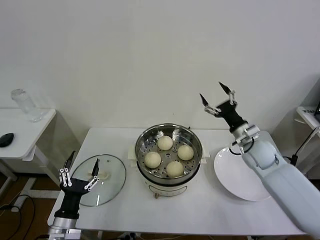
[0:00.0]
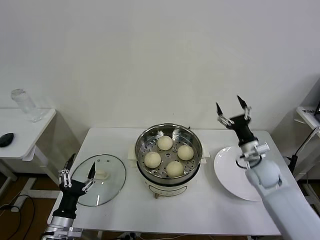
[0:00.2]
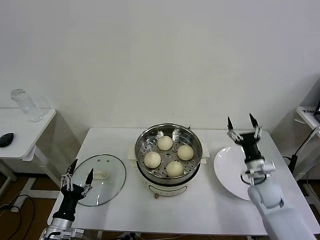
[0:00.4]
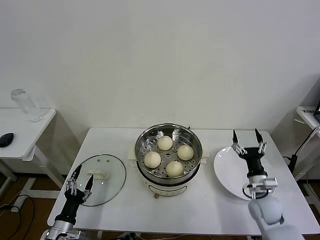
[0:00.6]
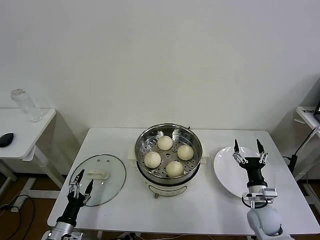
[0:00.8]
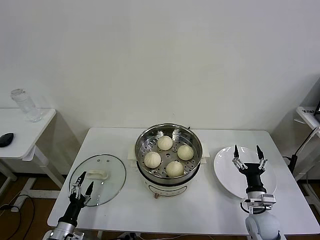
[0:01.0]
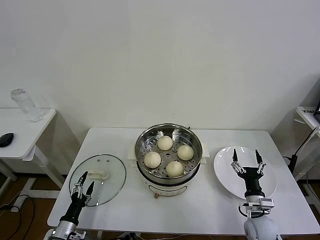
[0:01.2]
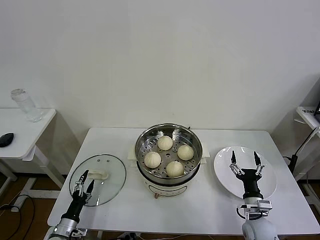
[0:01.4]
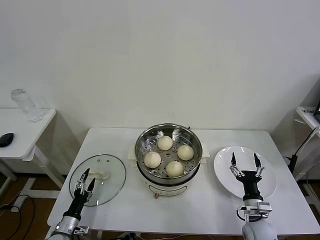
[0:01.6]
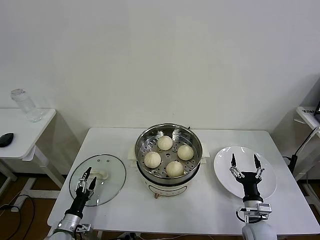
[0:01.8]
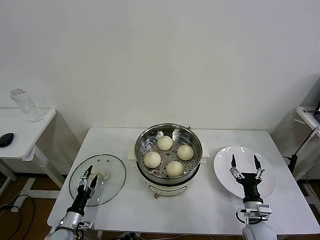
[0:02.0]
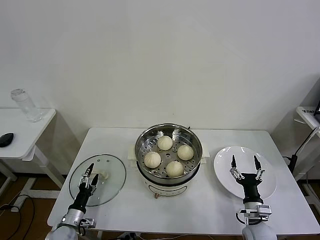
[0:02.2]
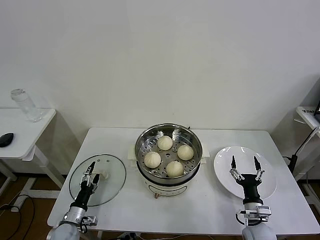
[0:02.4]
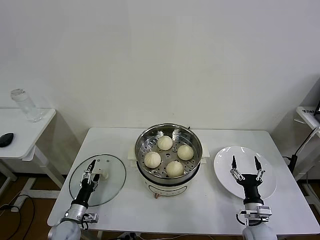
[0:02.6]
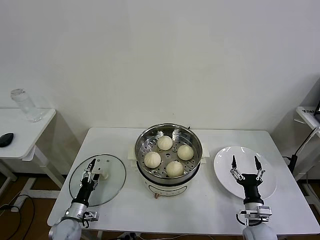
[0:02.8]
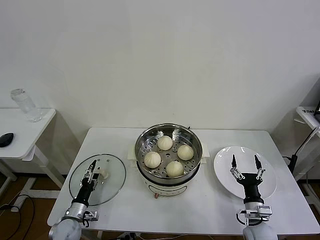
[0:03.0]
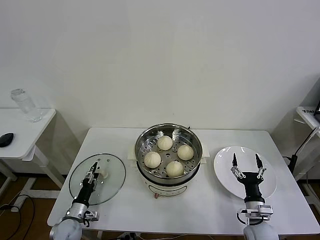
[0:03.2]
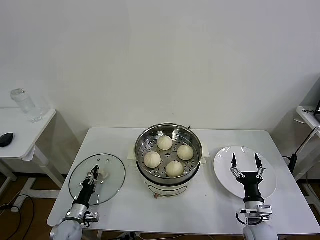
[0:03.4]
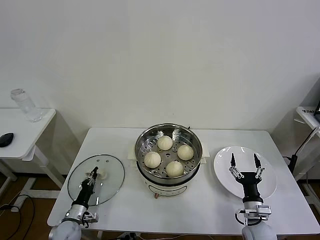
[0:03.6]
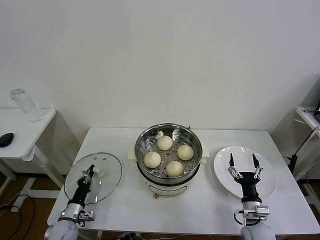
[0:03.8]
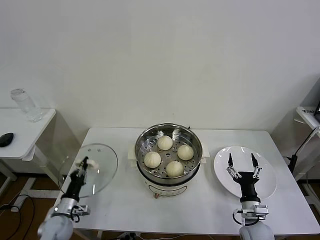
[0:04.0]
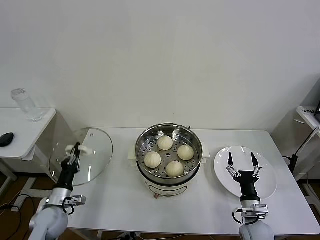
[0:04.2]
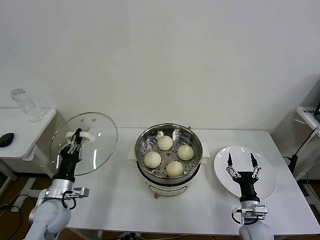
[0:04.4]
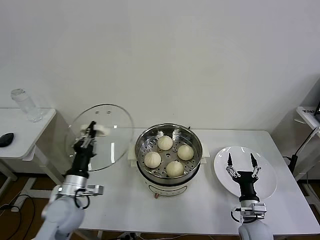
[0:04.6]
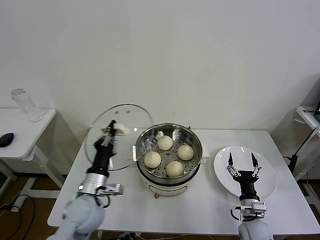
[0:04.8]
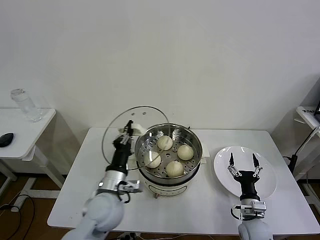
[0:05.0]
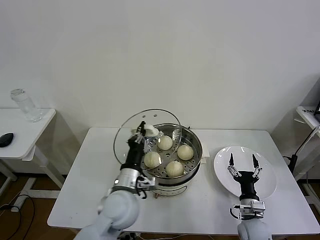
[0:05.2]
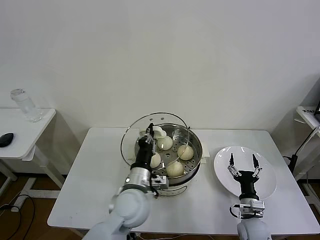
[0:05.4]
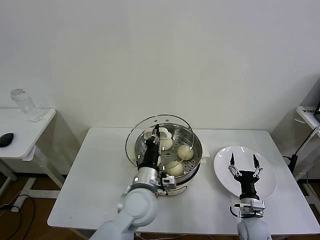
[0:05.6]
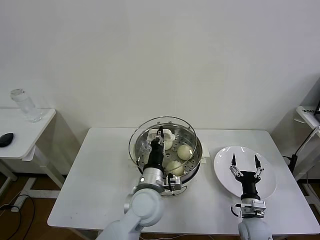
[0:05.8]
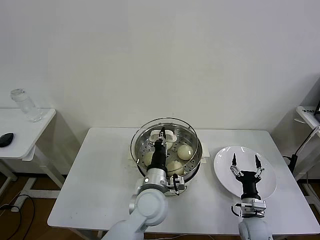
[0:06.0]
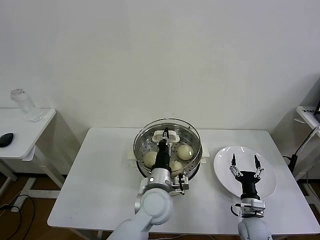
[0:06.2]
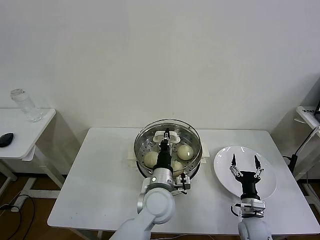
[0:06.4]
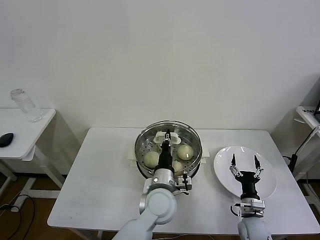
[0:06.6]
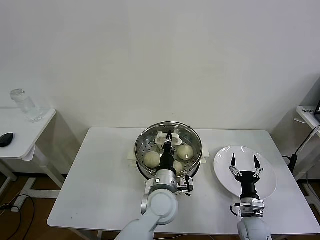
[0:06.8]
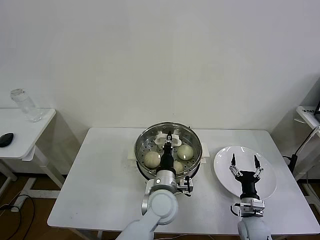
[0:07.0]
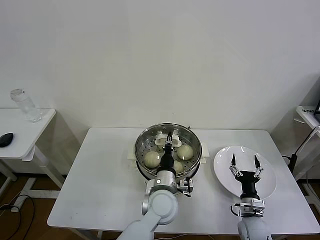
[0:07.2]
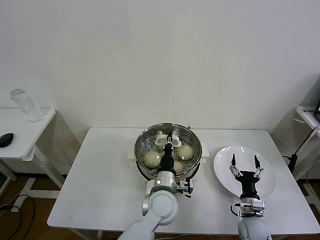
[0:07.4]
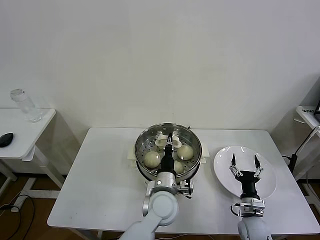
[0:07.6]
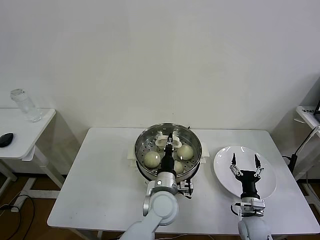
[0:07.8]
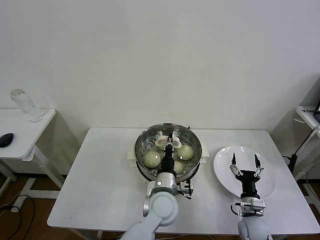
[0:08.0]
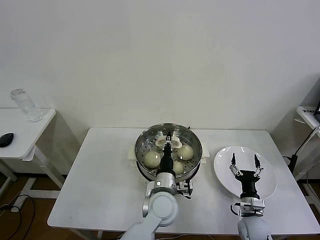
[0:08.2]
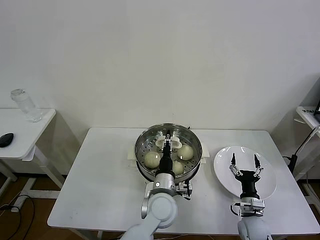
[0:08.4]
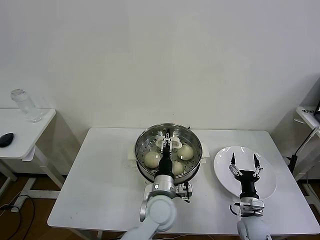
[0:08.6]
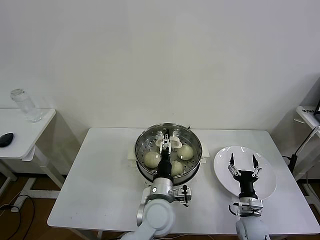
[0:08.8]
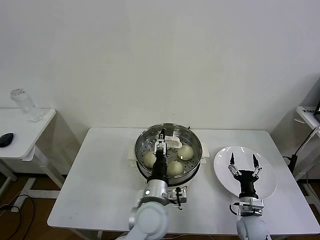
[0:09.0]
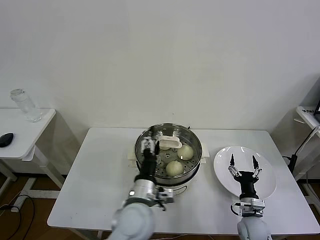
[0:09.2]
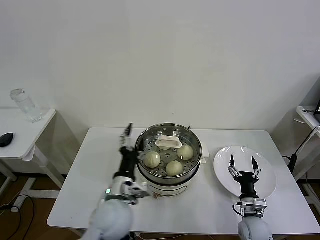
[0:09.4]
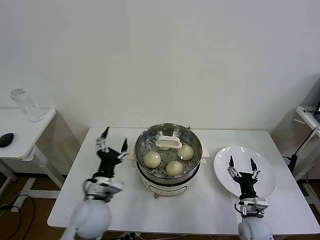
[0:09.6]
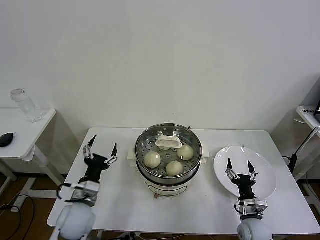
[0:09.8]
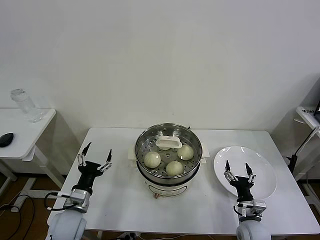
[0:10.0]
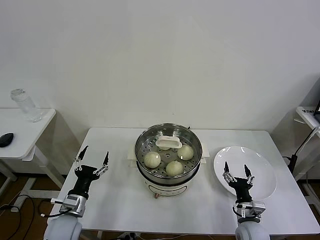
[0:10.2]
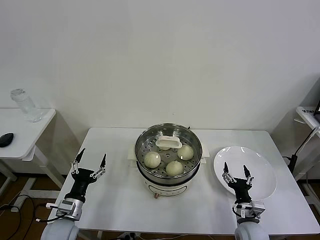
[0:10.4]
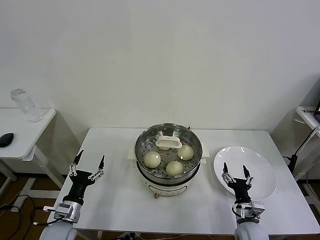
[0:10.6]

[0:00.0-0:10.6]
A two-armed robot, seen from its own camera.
Task of the whole recording: take steamed baozi put them in steamer then cover it.
Step, 0:00.0 to 0:03.6: Grasp the pot lid with left gripper.
Step, 0:04.0 to 0:08.6: Place the pot lid on the steamer with left gripper.
0:00.0 to 0:01.6: The right gripper moves downward and backward, roughly 25 cm, while the left gripper shifts about 15 cm downward and to the left.
0:01.6 to 0:03.0: The left gripper shifts about 5 cm forward.
0:03.0 to 0:04.6: The left gripper shifts some 20 cm upward, and closes its fingers.
0:04.6 to 0:06.0: The left gripper is displaced to the right by about 25 cm.
0:06.0 to 0:07.6: The left gripper ends up roughly 5 cm from where it was.
0:07.6 to 0:09.0: The left gripper ends up about 5 cm from where it was, and opens up.
0:09.0 to 0:10.6: The left gripper goes roughly 30 cm to the left.

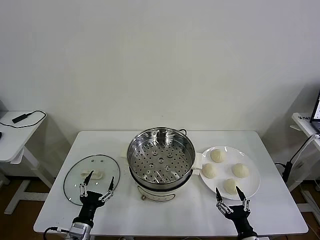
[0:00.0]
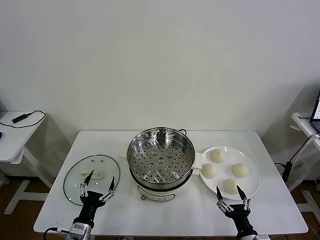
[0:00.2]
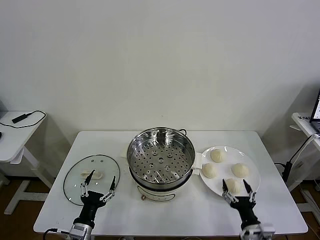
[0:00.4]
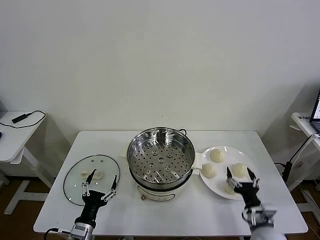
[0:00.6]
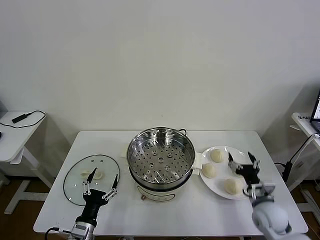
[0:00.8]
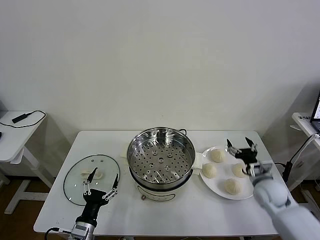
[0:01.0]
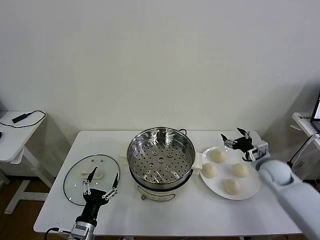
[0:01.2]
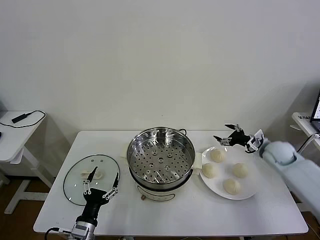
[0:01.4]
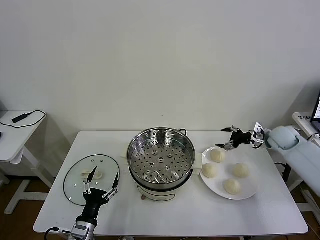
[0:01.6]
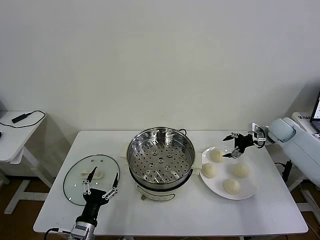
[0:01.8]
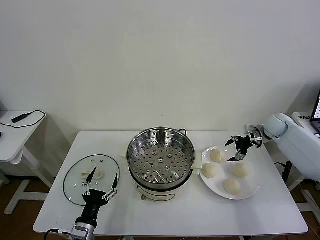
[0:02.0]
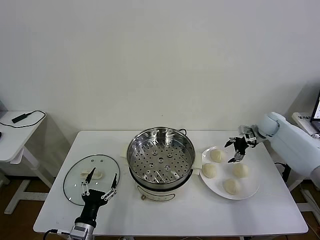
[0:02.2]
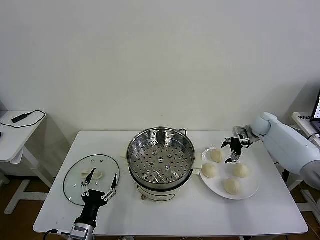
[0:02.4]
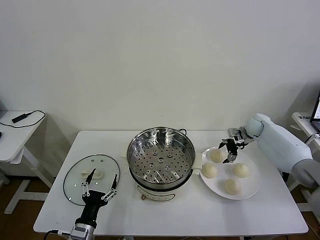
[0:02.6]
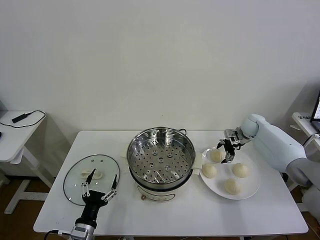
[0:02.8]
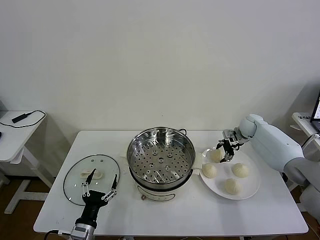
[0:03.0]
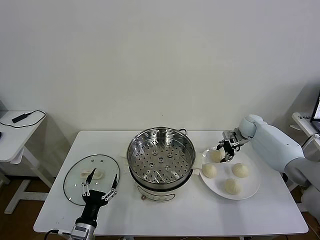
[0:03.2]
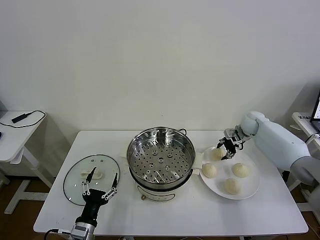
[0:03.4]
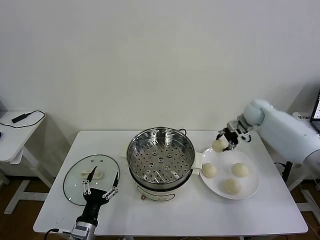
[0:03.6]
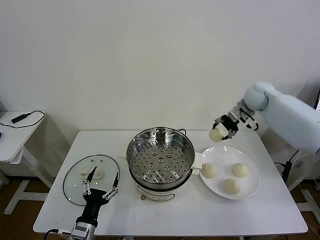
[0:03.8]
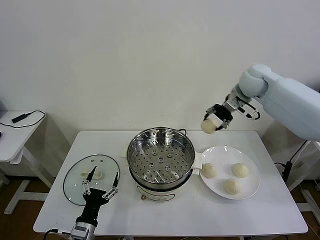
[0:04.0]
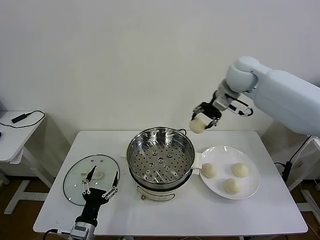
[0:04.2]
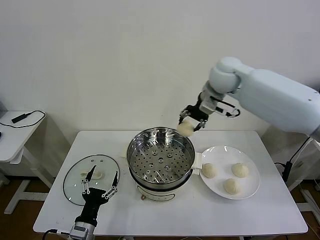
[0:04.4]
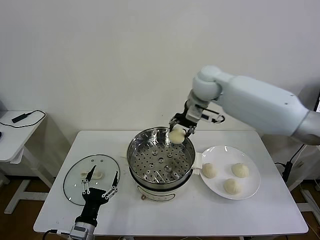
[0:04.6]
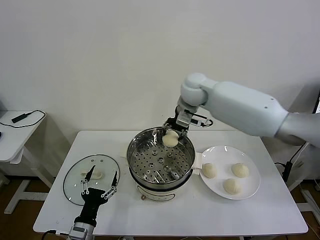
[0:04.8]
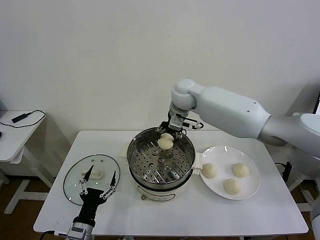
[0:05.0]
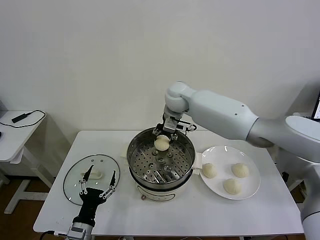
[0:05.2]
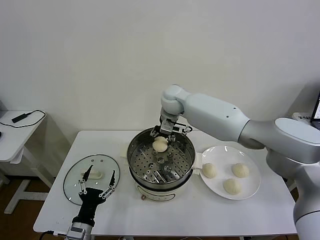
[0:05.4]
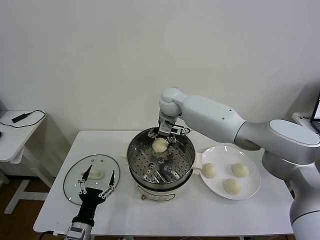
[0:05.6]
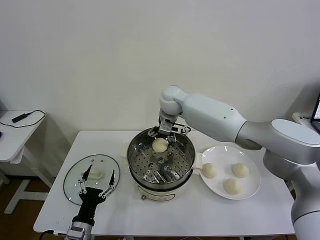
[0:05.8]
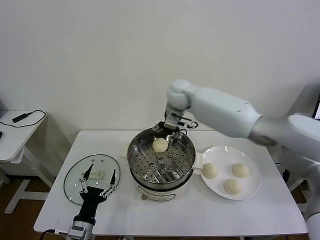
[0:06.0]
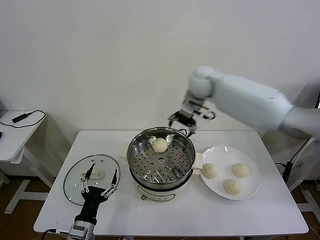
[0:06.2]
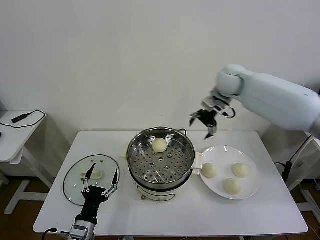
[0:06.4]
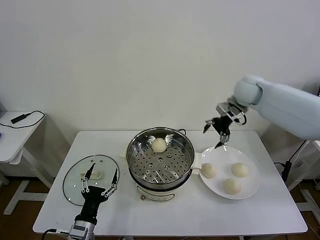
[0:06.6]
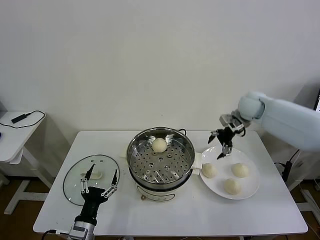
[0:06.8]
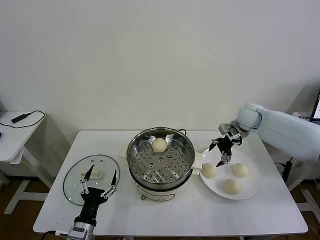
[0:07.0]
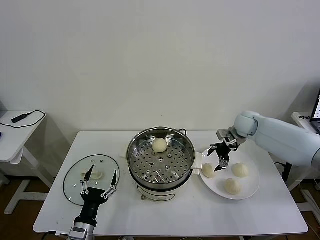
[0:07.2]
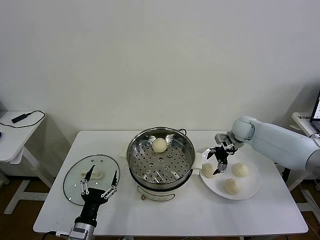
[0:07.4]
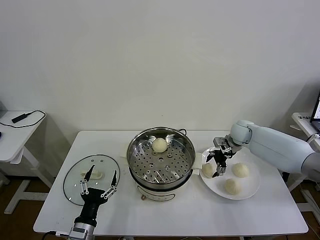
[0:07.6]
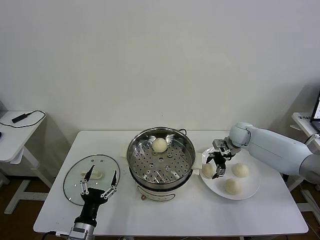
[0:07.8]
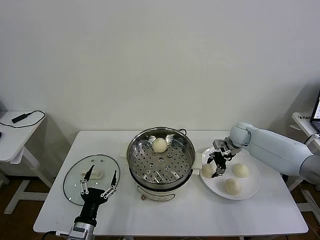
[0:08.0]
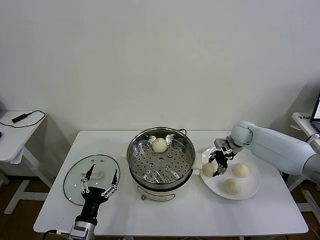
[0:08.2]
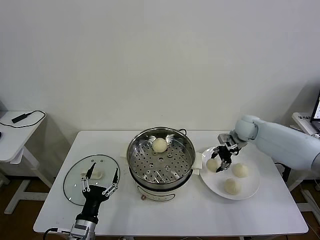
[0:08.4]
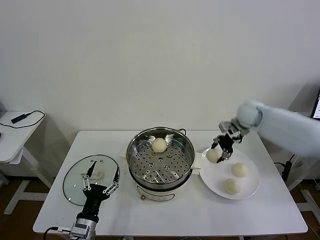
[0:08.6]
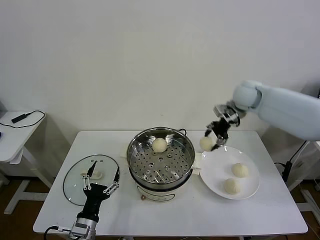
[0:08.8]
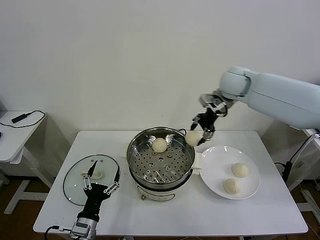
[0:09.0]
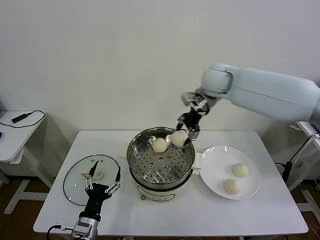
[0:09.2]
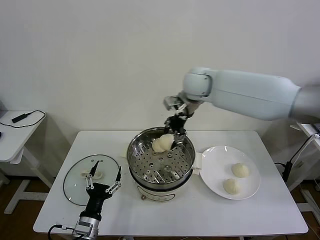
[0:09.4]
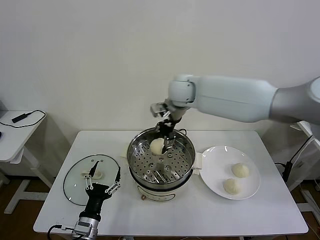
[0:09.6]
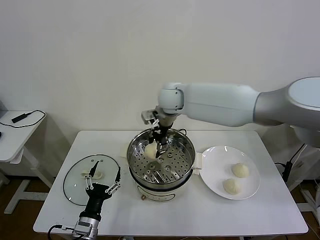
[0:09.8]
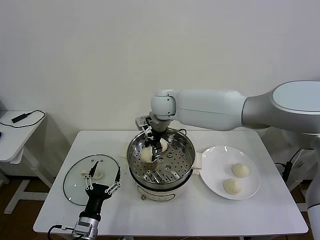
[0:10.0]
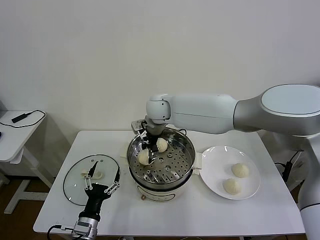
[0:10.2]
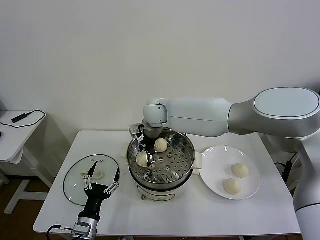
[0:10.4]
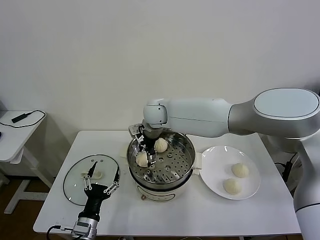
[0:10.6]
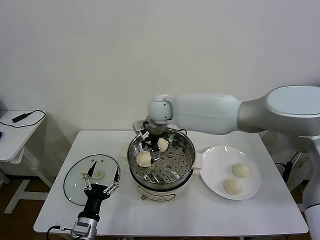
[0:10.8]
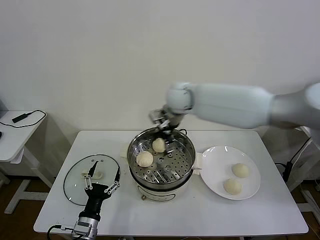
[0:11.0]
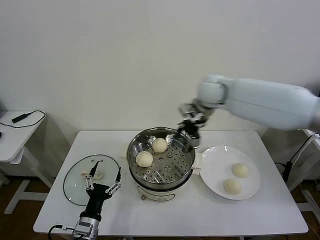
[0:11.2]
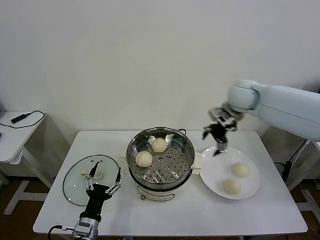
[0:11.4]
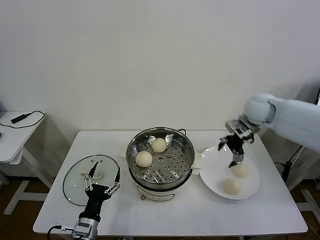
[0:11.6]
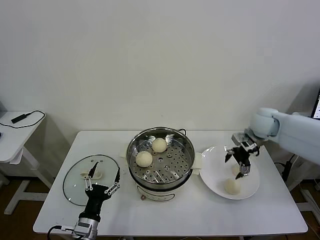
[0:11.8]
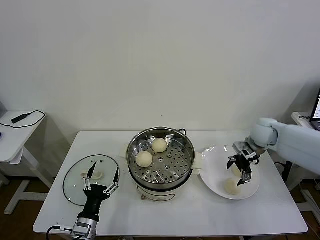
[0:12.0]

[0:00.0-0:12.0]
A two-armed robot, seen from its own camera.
Task of the whole recording: take steamed baozi put them in steamer then cover it.
Step, 0:00.0 to 0:03.2: Grasp the baozi in the plate with right gripper.
Step, 0:03.4 to 0:05.6: Place the baozi on the steamer with right gripper.
Step, 0:05.8 to 0:08.2: Grasp the baozi in the plate with right gripper.
Step, 0:08.4 to 0:10.6: Place the baozi on the steamer with right gripper.
0:01.6 to 0:03.0: The right gripper moves forward and to the left, about 10 cm, and closes.
0:03.0 to 0:04.4: The right gripper moves upward and to the left, about 35 cm.
0:04.4 to 0:06.0: The right gripper travels to the left and downward by some 10 cm, and opens up.
0:06.0 to 0:07.6: The right gripper heads to the right and downward, covering some 30 cm.
0:07.6 to 0:09.0: The right gripper is displaced upward and to the left by some 25 cm, and closes.
0:09.0 to 0:10.4: The right gripper heads to the left and downward, covering some 25 cm, and opens its fingers.
0:10.4 to 0:12.0: The right gripper heads to the right, covering about 40 cm.
